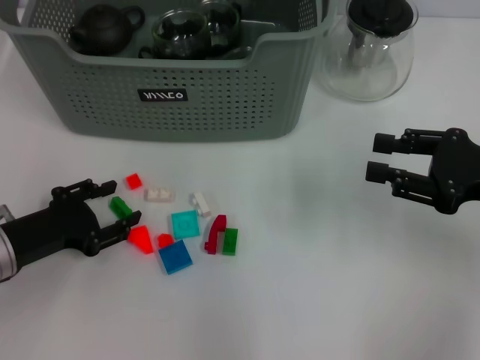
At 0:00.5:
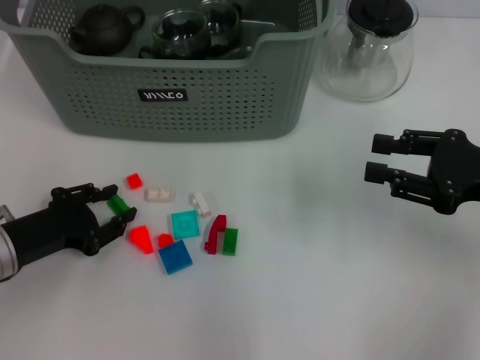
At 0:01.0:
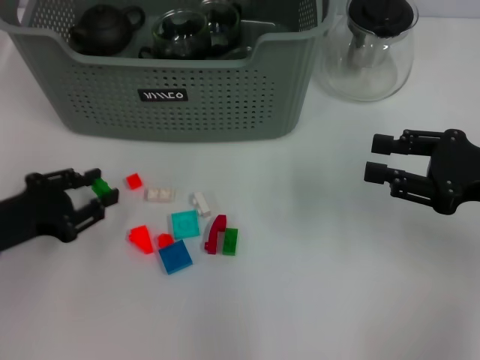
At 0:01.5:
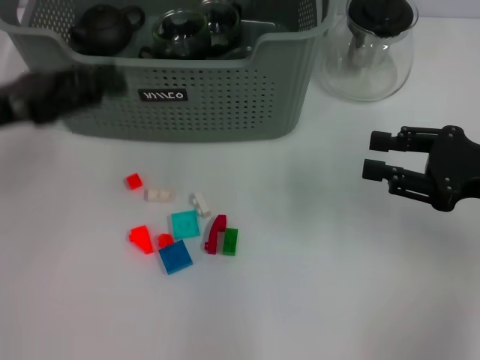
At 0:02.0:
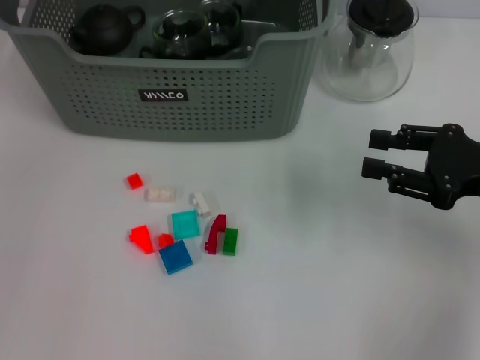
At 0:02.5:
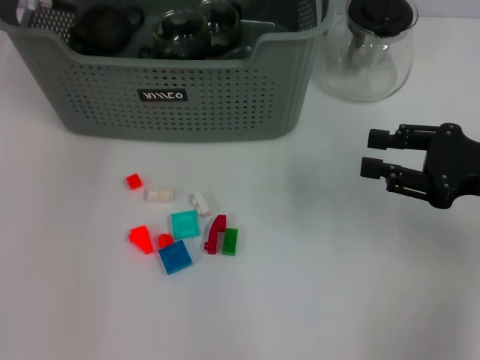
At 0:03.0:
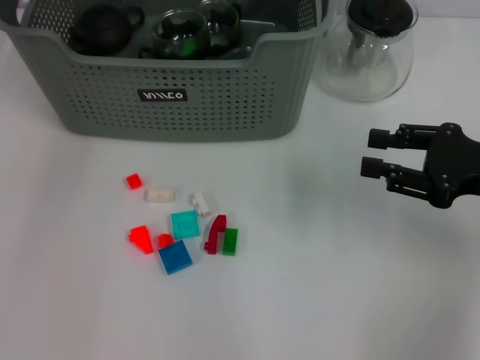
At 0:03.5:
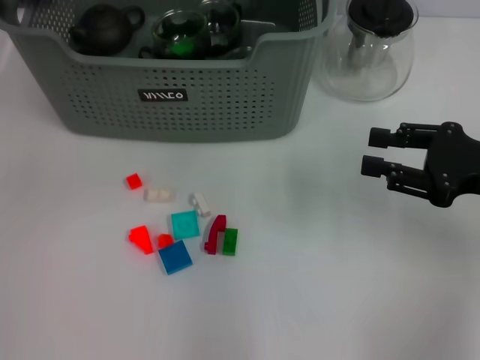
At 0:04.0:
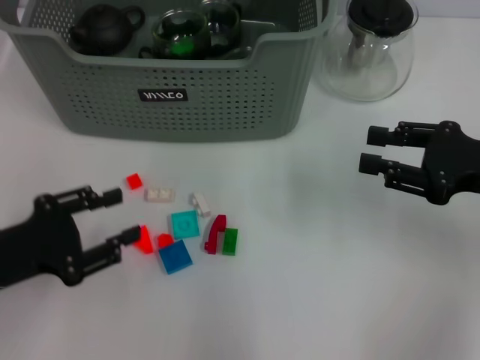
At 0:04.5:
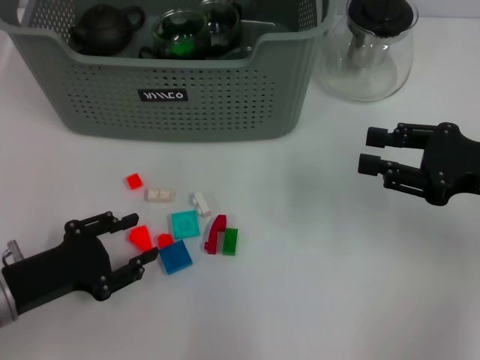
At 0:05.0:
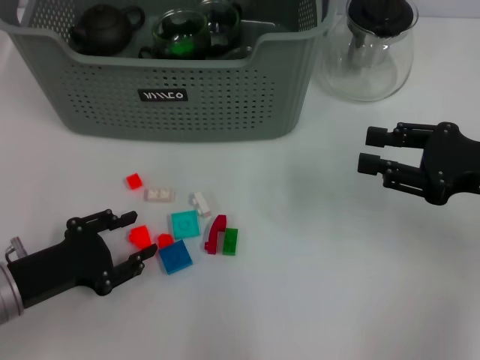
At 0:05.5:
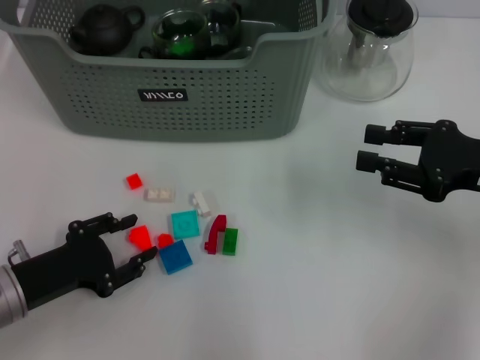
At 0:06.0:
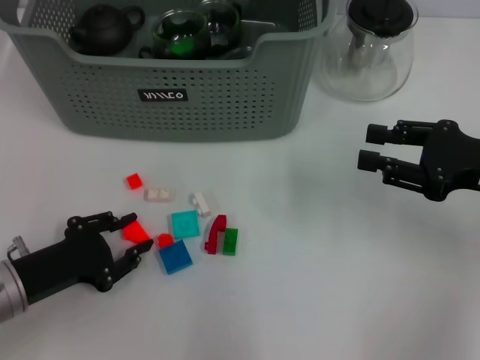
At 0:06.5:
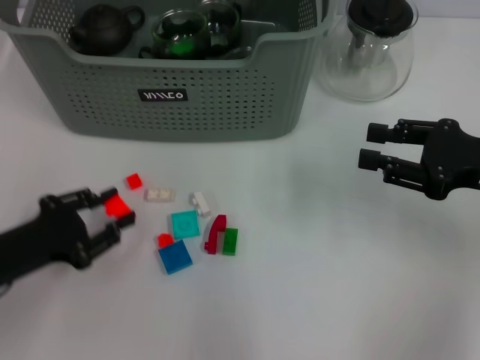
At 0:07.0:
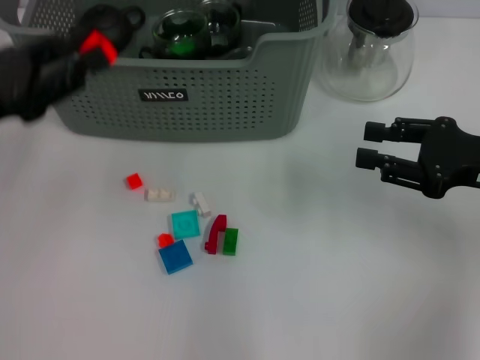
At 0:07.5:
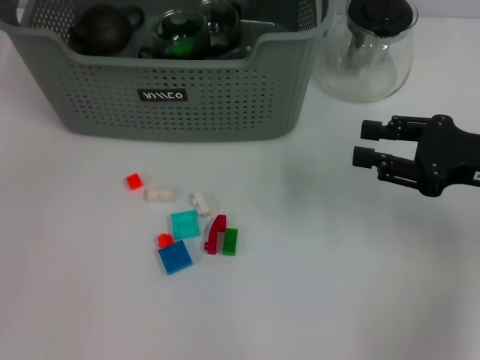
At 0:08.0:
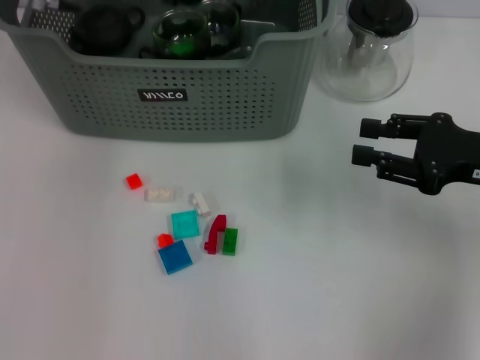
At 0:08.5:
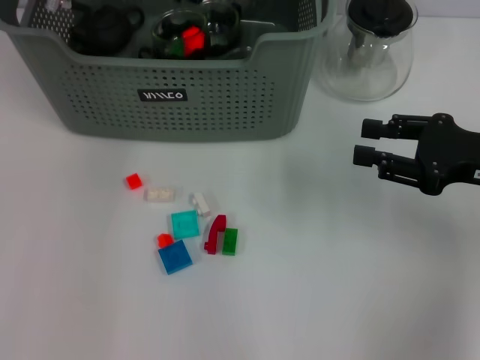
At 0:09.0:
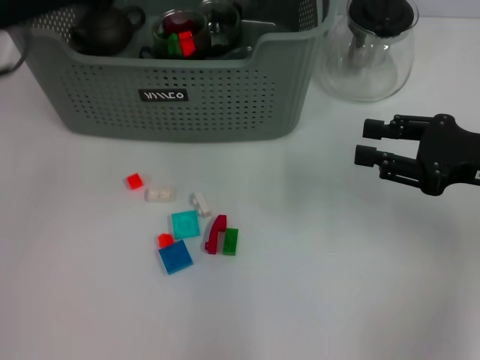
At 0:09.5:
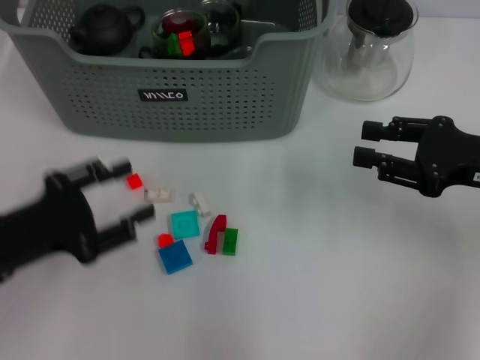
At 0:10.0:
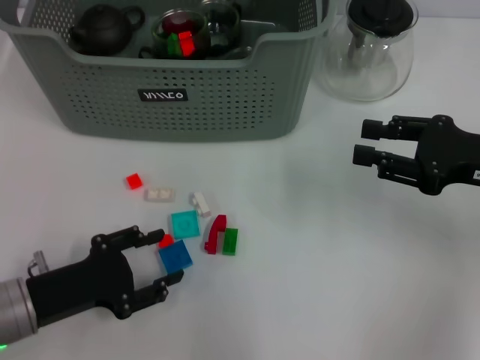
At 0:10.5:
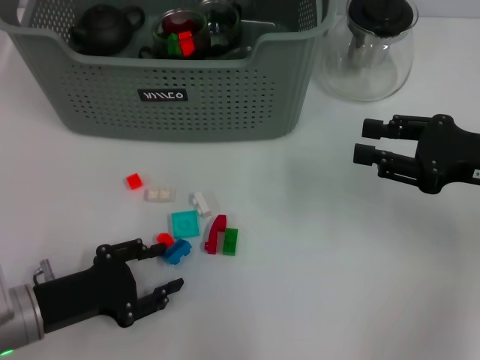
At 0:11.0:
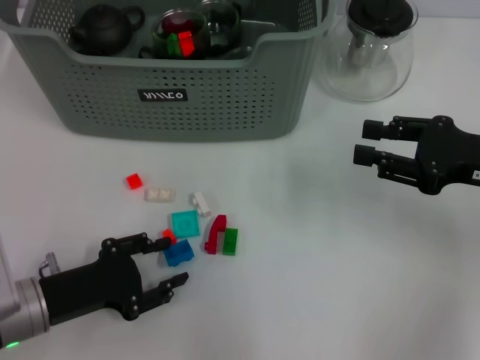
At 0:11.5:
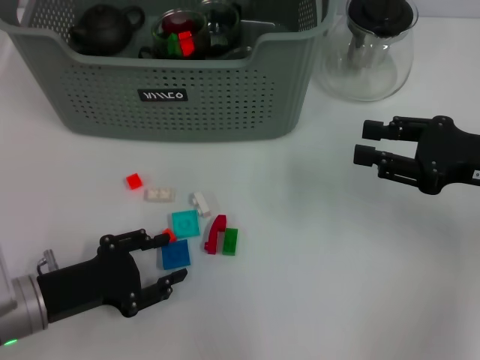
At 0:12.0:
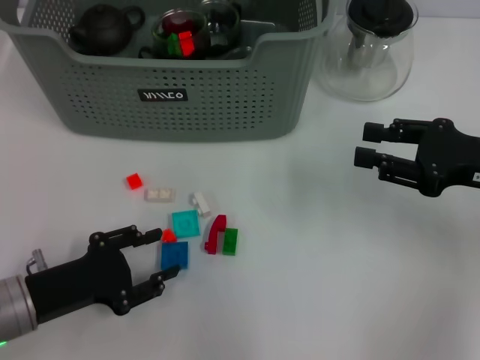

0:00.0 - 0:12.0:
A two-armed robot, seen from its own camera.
Task of the whole recording: pick up the teacup on the table and place it into the storage bin, pick up the block on the table and place it into the storage bin.
Step, 0:01.0 - 0:02.5: Place the green block in the storage box with left gripper.
Step, 0:03.0 - 0:06.0: Grasp the orange block with left gripper.
Step, 0:06.5 - 0:08.0: Place the orange block in the storage box with left gripper.
0:00.0 - 0:02.0: The left gripper heads upward and forward, covering roughly 30 cm.
0:02.0 - 0:04.0: The left gripper goes about 30 cm backward and downward.
0:04.0 - 0:06.0: The left gripper is displaced downward by approximately 5 cm.
0:06.0 - 0:08.0: The left gripper heads forward and upward, covering approximately 35 cm.
0:08.0 - 0:10.0: The left gripper goes roughly 35 cm backward and downward.
0:10.0 - 0:12.0: Both grippers stay about where they are.

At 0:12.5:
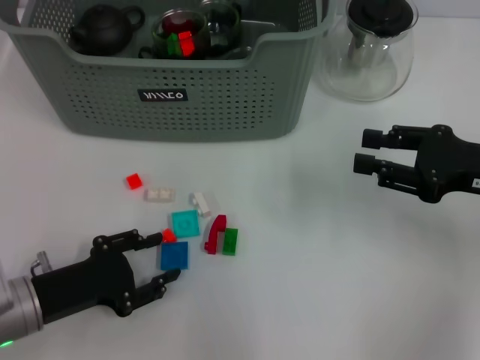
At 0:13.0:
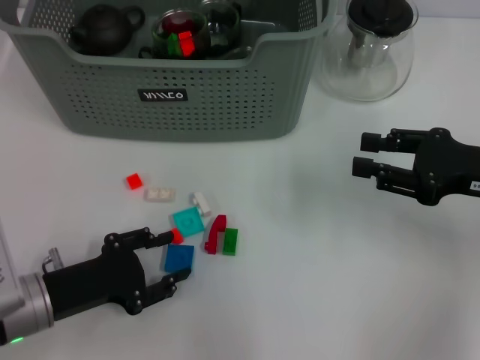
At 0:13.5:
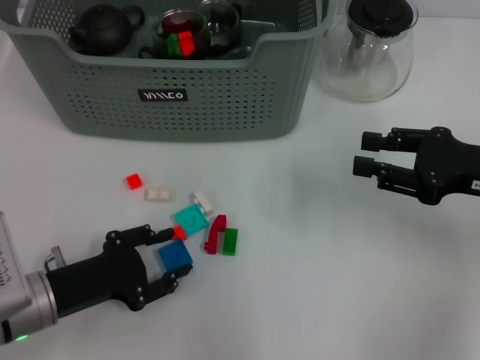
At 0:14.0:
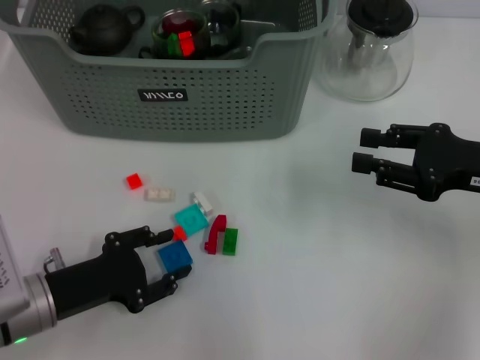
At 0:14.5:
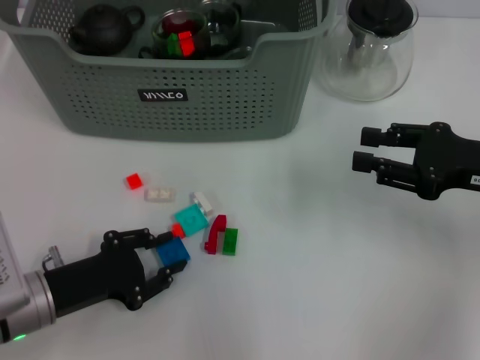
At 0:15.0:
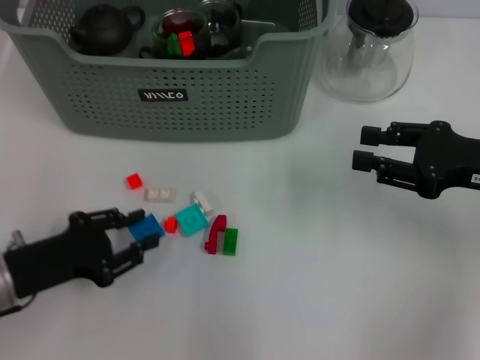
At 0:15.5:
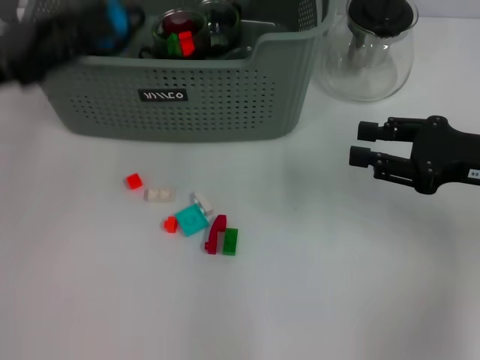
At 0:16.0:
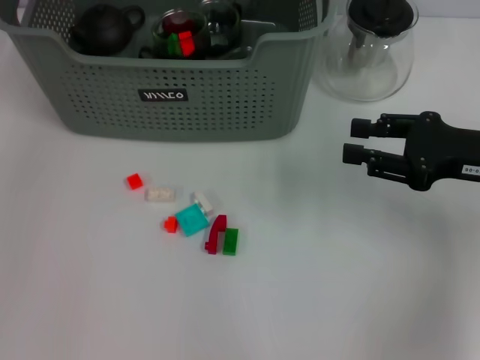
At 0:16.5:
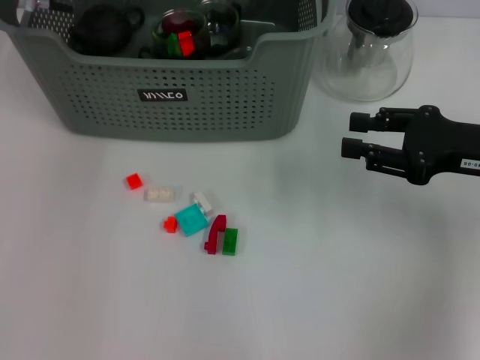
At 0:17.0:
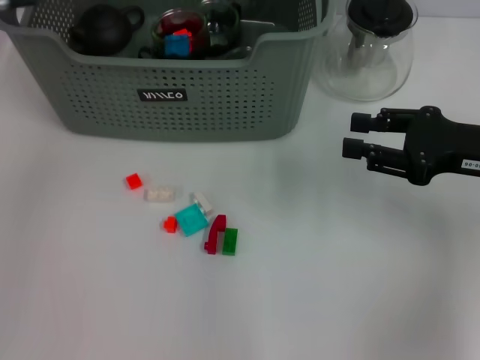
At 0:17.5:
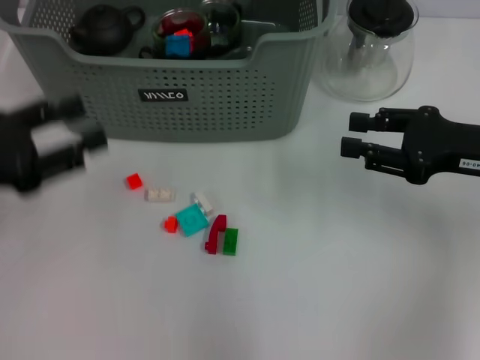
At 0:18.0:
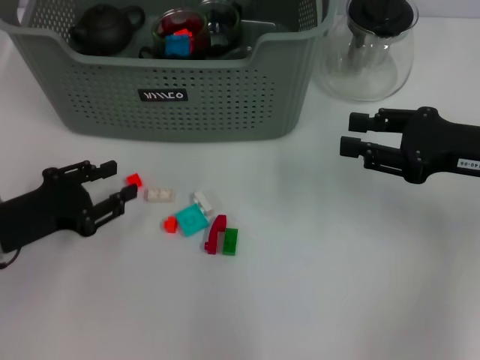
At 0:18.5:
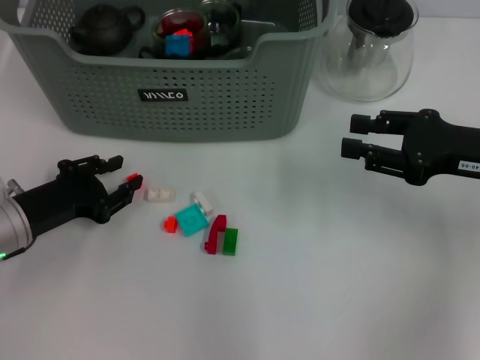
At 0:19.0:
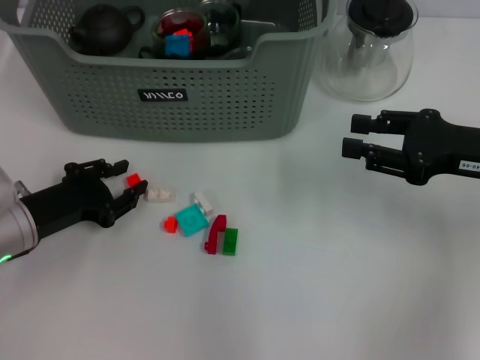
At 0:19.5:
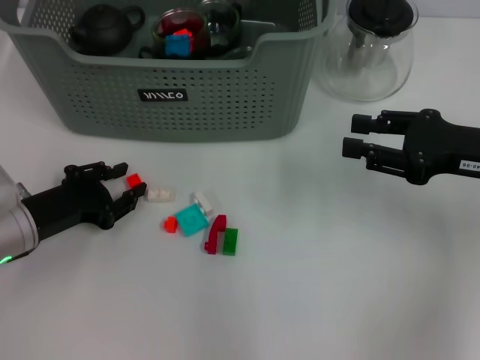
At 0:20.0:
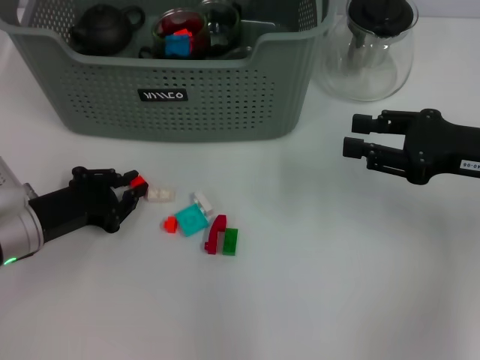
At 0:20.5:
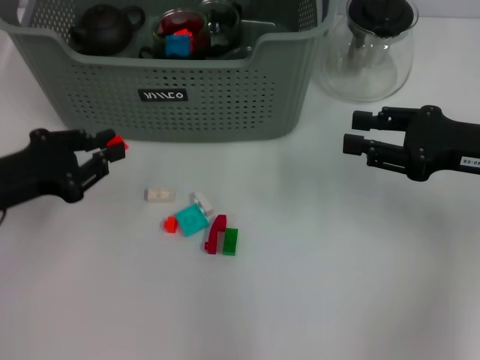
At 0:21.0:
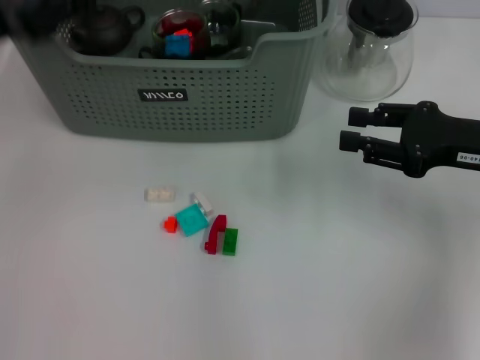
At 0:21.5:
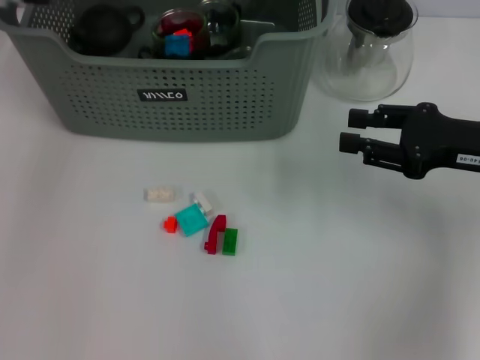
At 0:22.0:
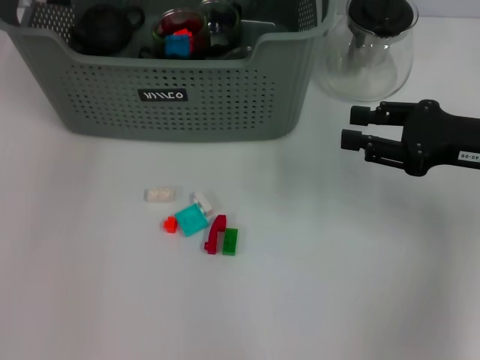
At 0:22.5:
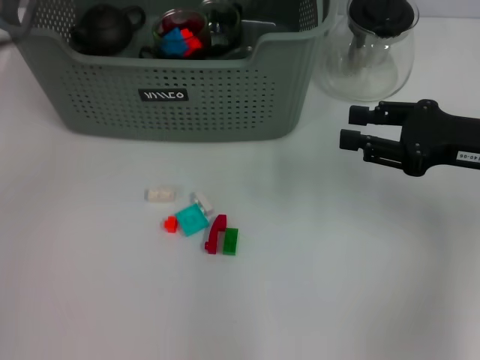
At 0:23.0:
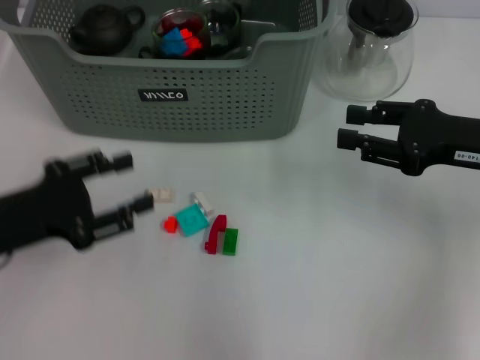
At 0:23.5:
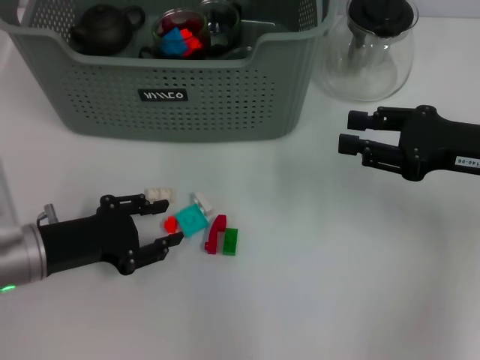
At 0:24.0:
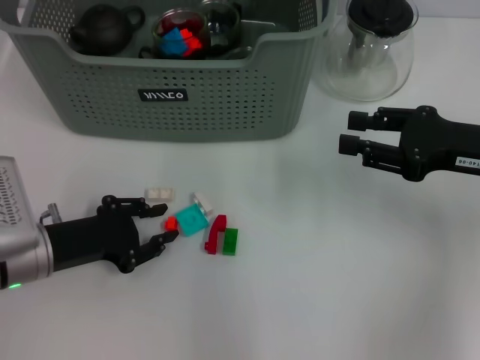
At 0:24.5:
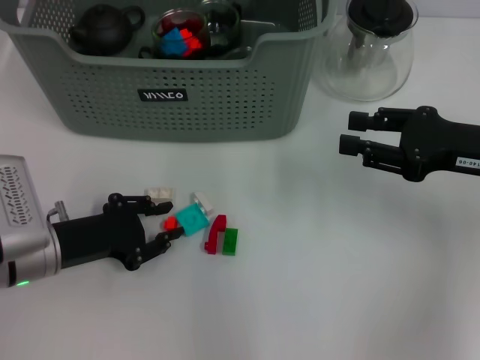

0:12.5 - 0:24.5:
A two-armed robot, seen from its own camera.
Task of the whole recording: pick up the teacup on the table and place it into the storage bin, pick up the block on the table and place it into the storage bin.
Step, 0:15.0 - 0:16.5: Place the dark blue block in the storage box with left gripper.
Step, 0:17.0 - 0:19.5: Grasp the orange block with left gripper.
Step, 0:20.0 - 0:22.0: Place the orange block in the storage box with left gripper.
0:12.5 - 0:14.5: The grippers make only small movements.
0:14.5 - 0:16.5: The left gripper travels forward and upward by about 35 cm.
0:16.5 - 0:18.5: The left gripper goes some 30 cm downward, backward and to the left.
0:18.5 - 0:20.5: The left gripper shifts approximately 5 cm upward.
0:20.5 - 0:22.5: The left gripper is displaced upward and forward by some 15 cm, and opens its fingers.
0:22.5 - 0:24.5: The left gripper is displaced downward and backward by some 25 cm.

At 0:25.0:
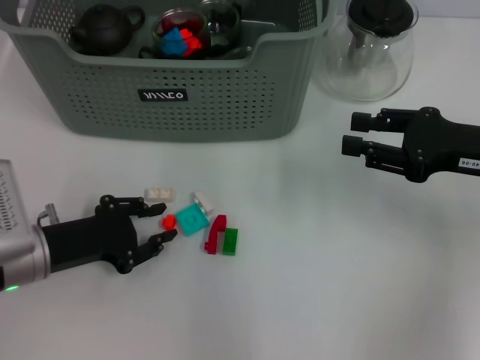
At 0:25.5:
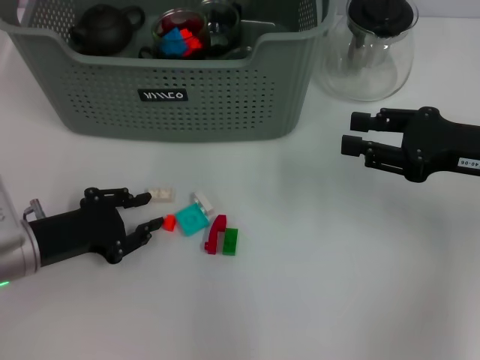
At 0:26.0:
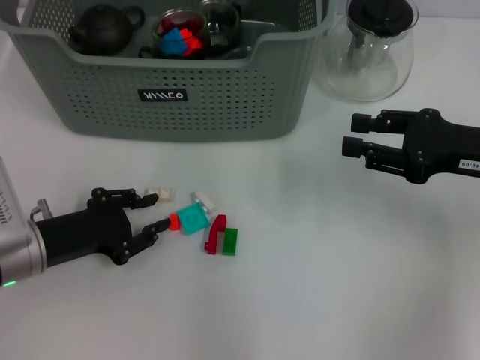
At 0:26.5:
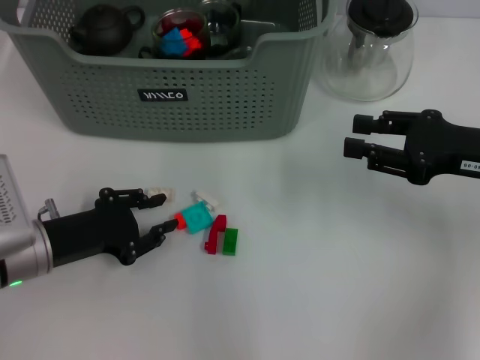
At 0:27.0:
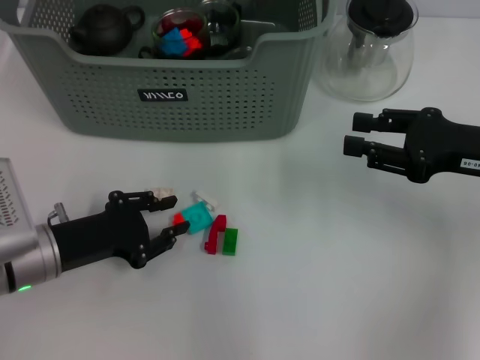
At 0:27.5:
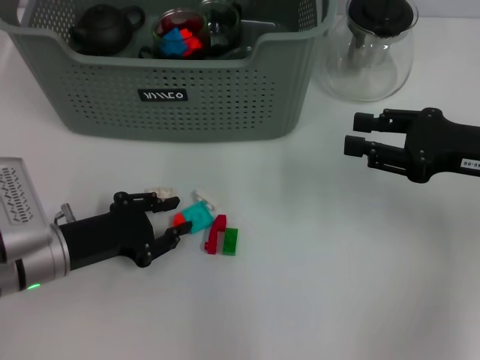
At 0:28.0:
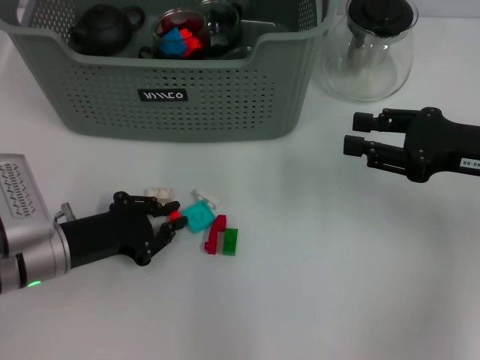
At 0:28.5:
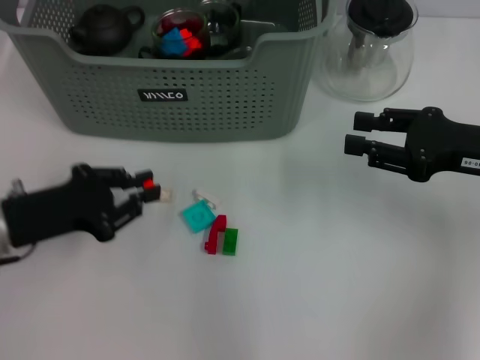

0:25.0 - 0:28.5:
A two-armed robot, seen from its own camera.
Task of the whole recording: pick up the teacup on the table and place it into the storage bin, pick up the block on the table and place it into the storage bin.
Step, 0:25.0 - 0:28.0: Grasp the orange block with left gripper.
0:25.0 - 0:27.0: The grippers stay close to where they were, moving slightly.
0:27.0 - 0:28.5: The left gripper ends up some 5 cm from where it was.
